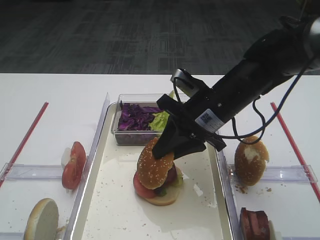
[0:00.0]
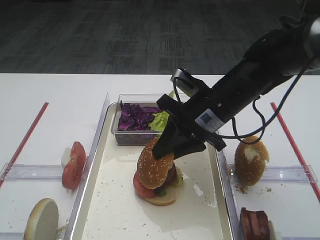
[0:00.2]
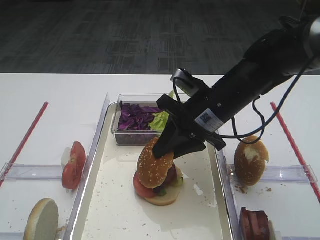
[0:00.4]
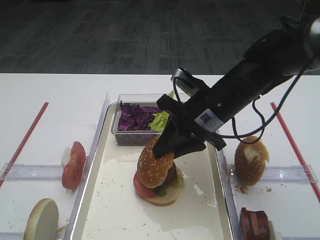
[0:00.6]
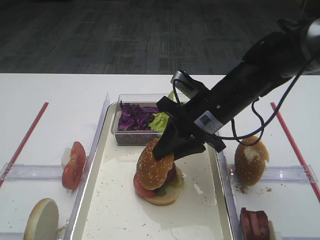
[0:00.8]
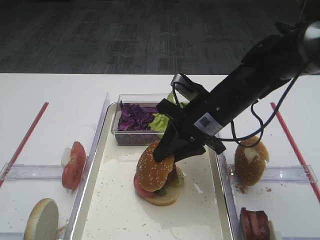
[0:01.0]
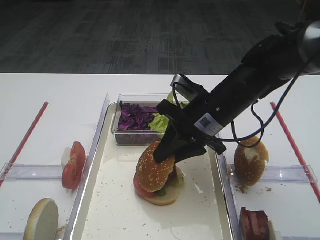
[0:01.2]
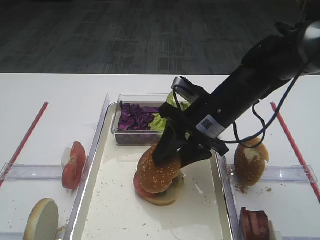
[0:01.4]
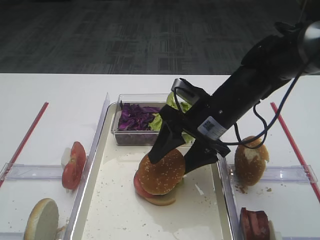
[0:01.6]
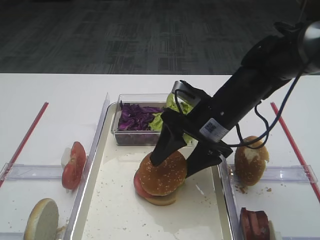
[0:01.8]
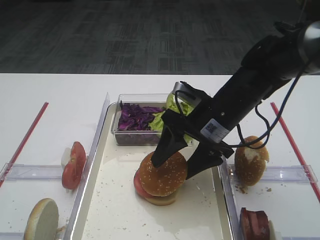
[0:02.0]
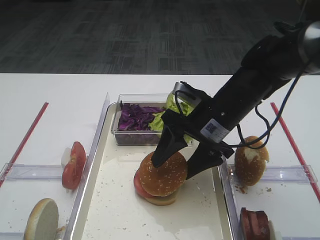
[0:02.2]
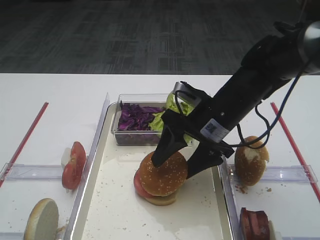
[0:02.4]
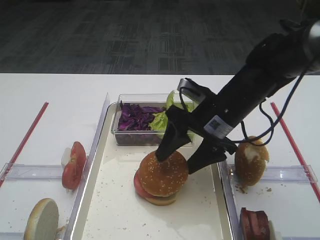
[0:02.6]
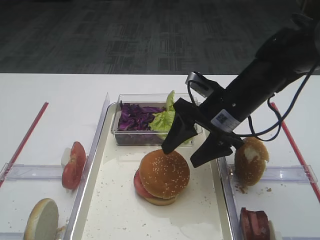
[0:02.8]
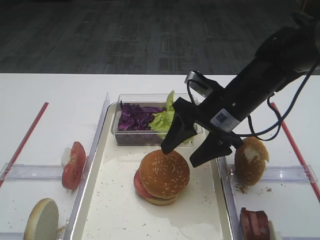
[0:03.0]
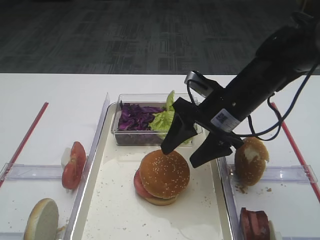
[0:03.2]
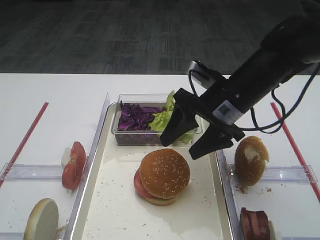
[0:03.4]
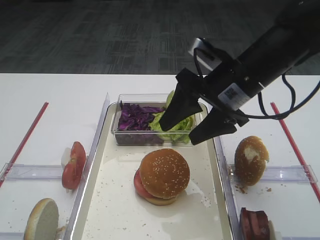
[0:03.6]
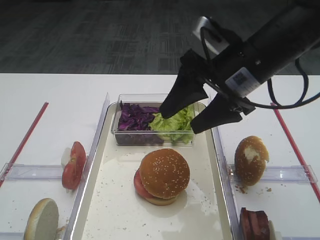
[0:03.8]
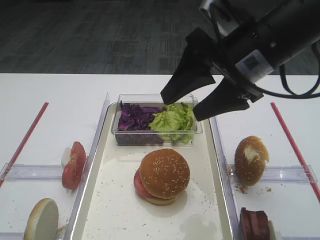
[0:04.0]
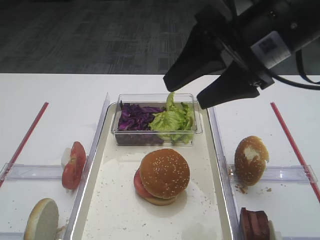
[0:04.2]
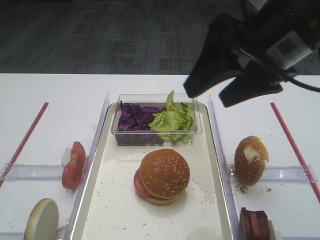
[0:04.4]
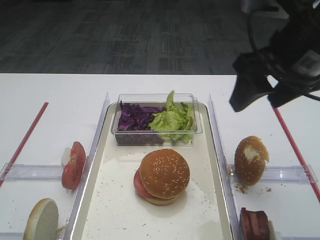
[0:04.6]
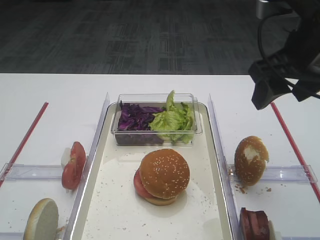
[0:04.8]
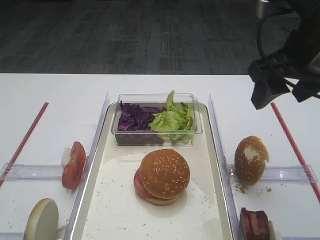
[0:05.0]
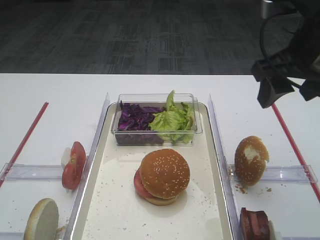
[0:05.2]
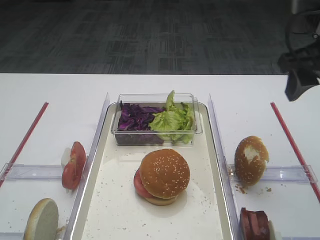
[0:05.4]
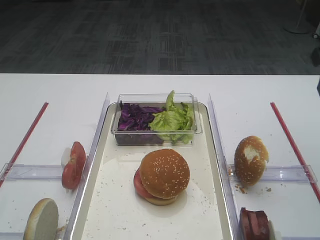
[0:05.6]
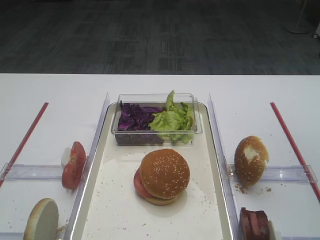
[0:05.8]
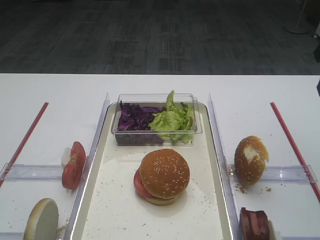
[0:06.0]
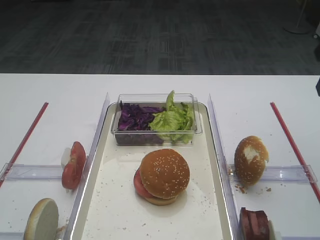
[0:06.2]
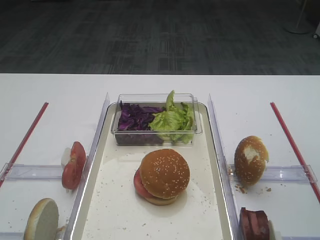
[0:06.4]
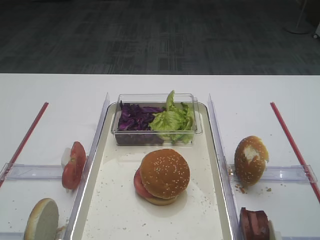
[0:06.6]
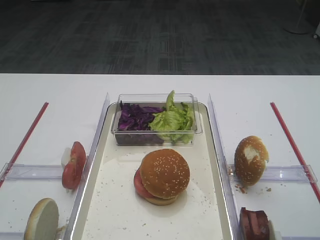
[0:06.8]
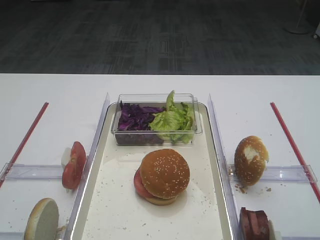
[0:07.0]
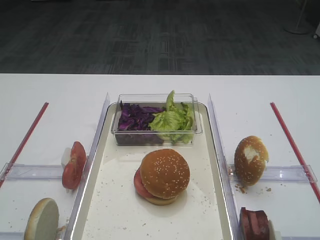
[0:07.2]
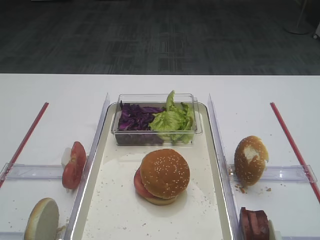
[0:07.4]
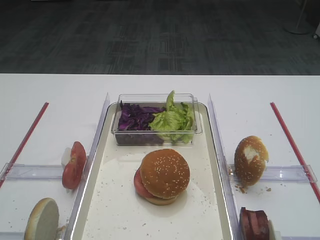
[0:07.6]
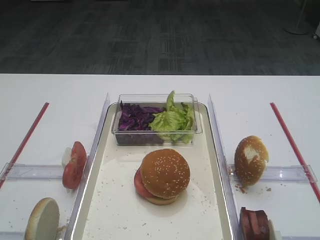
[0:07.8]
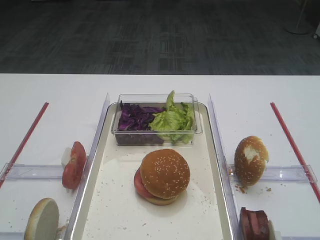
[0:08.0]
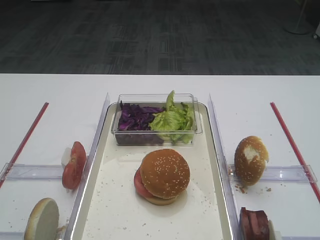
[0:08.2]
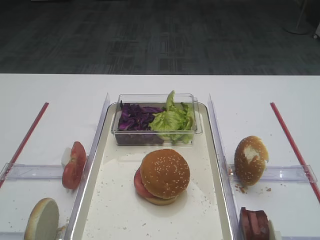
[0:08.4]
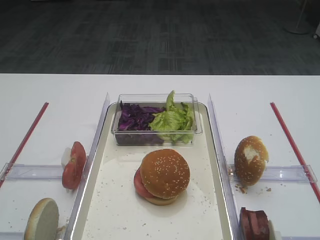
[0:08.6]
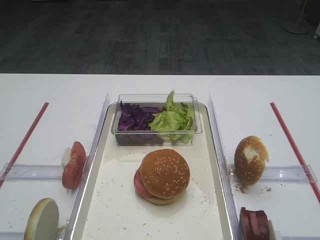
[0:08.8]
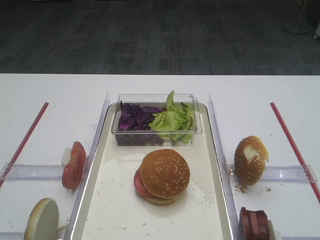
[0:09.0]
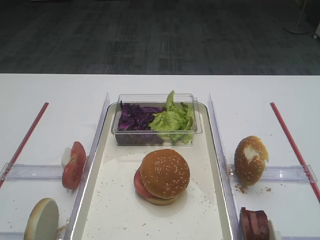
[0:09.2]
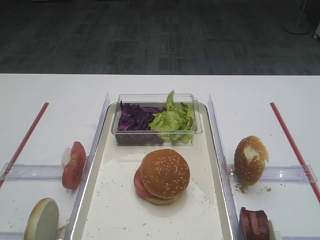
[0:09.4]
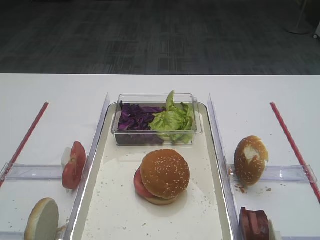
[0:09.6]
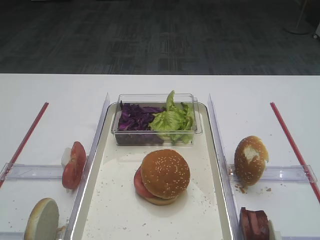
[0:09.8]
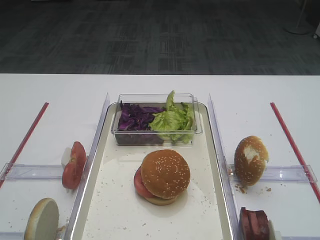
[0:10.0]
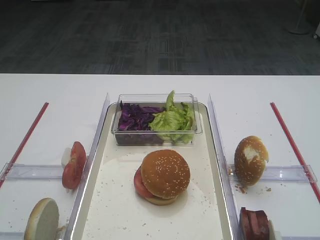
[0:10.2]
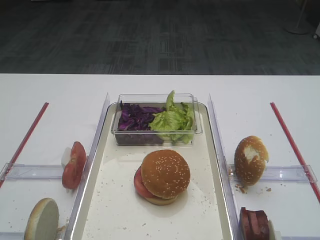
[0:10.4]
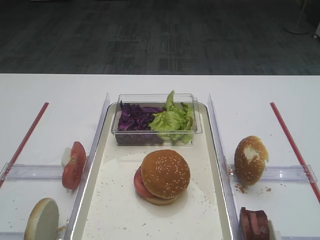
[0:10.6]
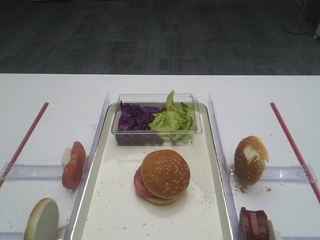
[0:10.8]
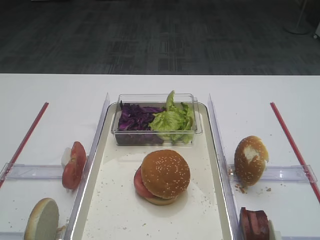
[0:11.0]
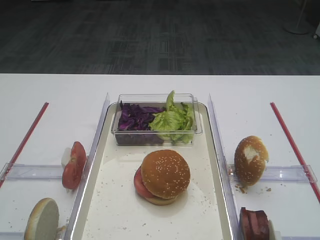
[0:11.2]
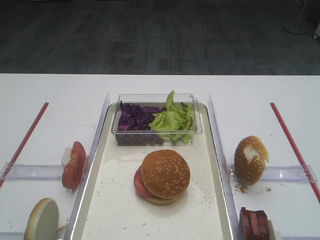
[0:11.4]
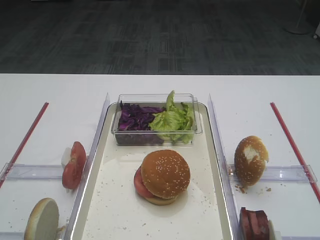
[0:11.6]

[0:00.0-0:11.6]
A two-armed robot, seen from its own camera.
Step, 0.0 to 3.0 s: Place the hamburger lid on the purple cabbage with the right gripper.
0.0 to 1.4 s: Both grippers stay about where they are.
1.4 to 2.8 s: The right gripper opens up.
2.8 to 4.4 s: The right gripper shifts about 20 cm upward and backward.
4.4 to 5.8 s: The right gripper heads to the right, covering approximately 15 cm.
8.8 to 11.6 s: Both grippers stay about where they are.

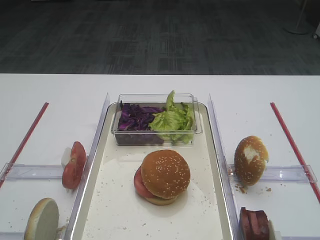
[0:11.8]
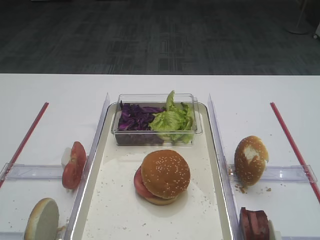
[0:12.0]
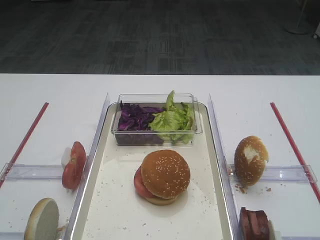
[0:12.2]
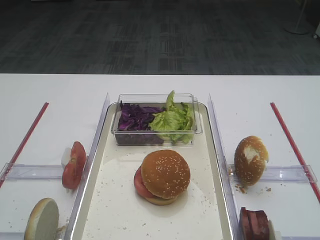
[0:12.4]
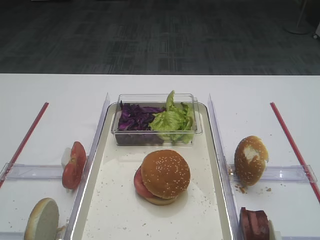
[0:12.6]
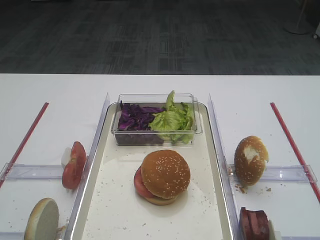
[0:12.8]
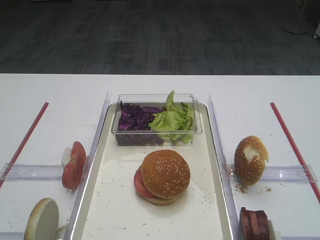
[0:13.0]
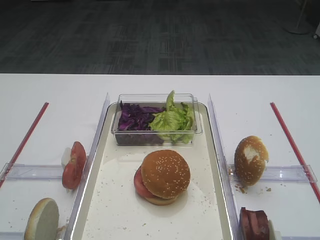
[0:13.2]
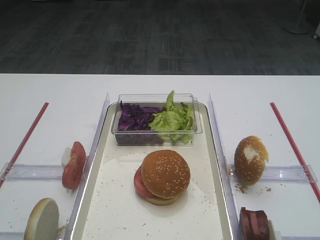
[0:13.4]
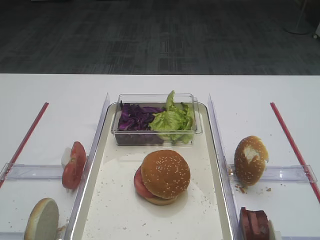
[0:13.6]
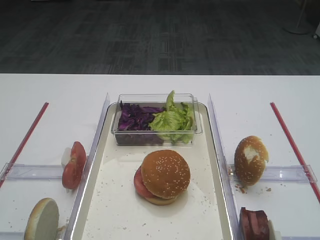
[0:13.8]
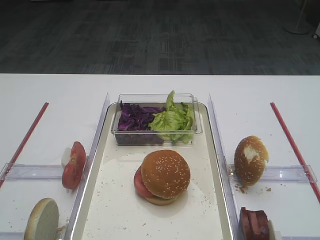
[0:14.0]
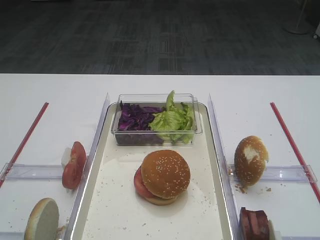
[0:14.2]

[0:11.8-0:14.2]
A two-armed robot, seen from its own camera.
11.8 to 14.2 s: The two grippers keep their place.

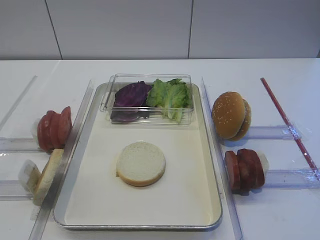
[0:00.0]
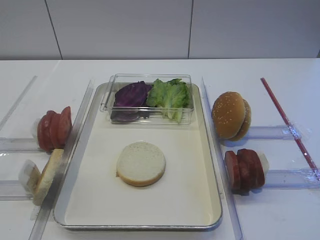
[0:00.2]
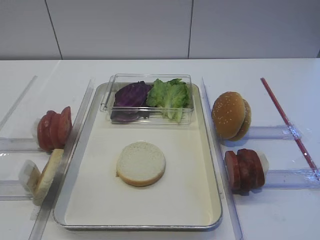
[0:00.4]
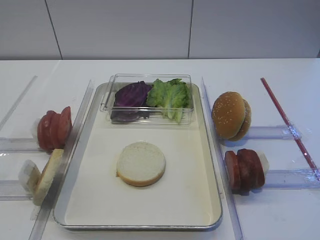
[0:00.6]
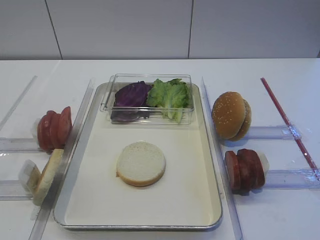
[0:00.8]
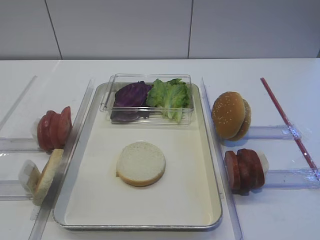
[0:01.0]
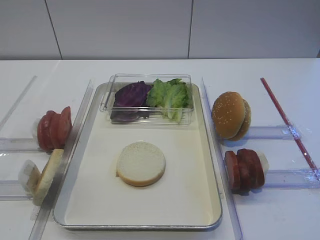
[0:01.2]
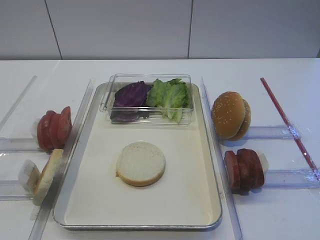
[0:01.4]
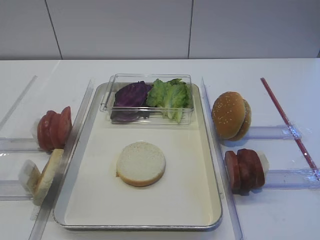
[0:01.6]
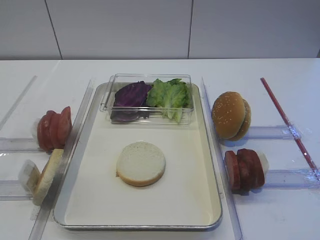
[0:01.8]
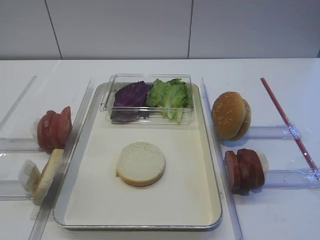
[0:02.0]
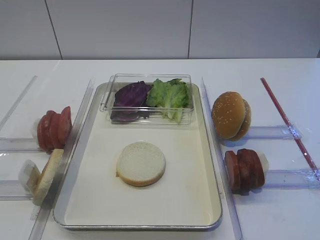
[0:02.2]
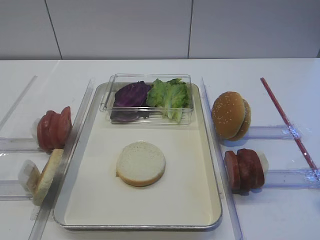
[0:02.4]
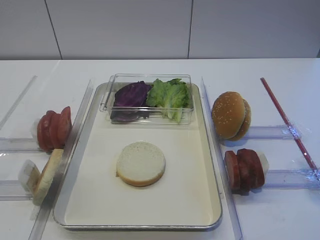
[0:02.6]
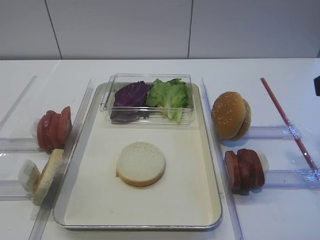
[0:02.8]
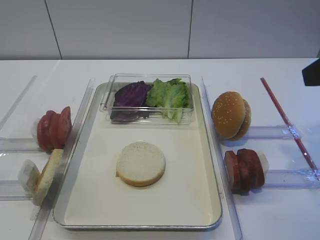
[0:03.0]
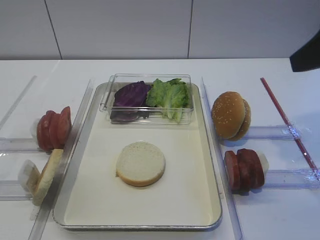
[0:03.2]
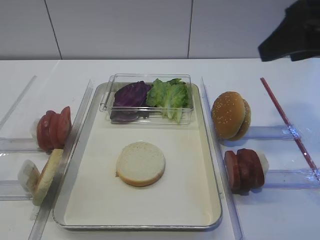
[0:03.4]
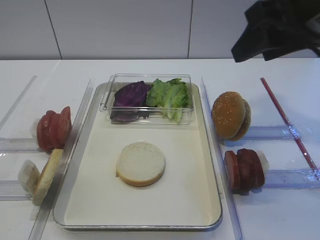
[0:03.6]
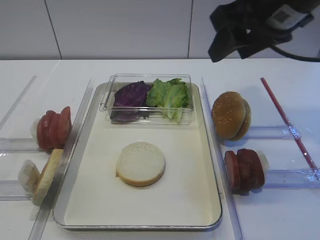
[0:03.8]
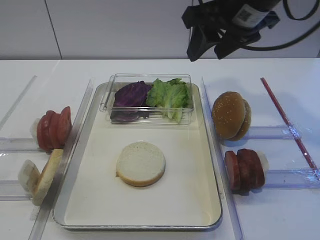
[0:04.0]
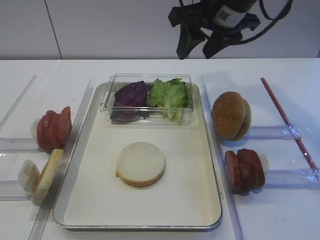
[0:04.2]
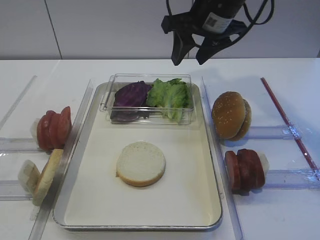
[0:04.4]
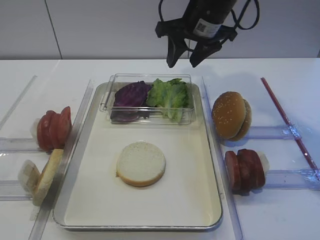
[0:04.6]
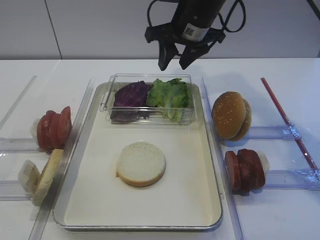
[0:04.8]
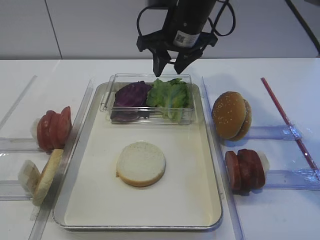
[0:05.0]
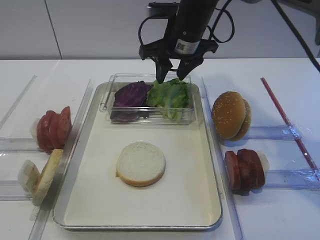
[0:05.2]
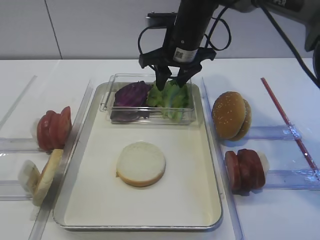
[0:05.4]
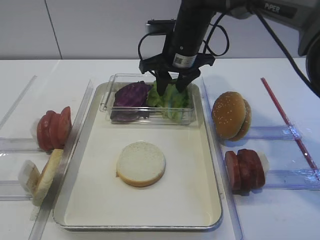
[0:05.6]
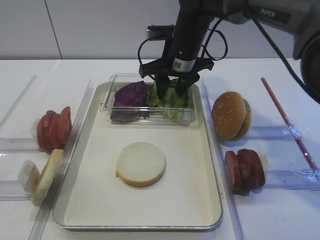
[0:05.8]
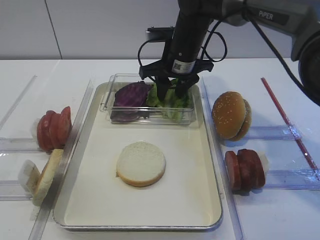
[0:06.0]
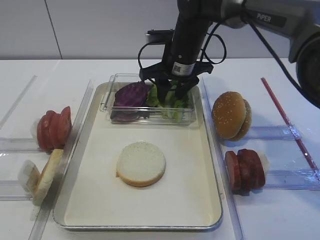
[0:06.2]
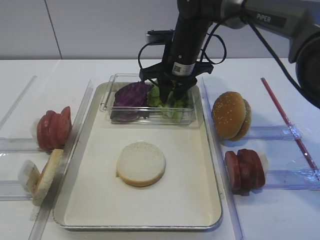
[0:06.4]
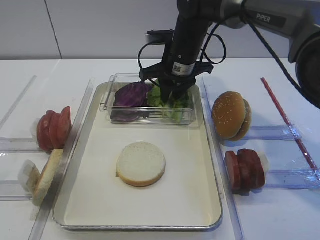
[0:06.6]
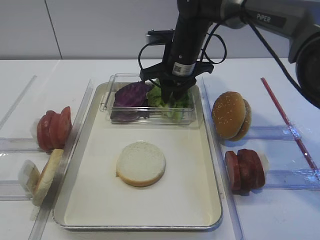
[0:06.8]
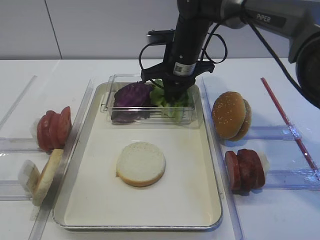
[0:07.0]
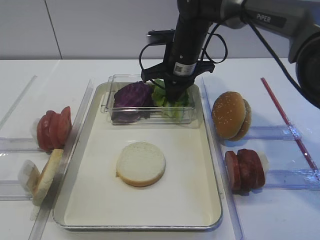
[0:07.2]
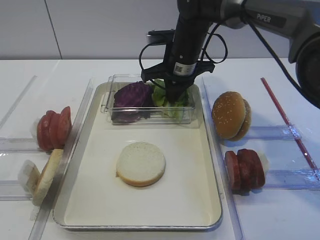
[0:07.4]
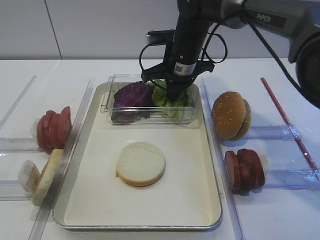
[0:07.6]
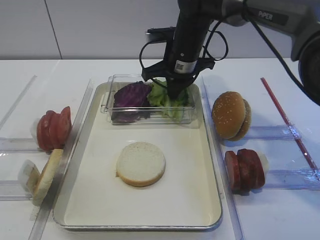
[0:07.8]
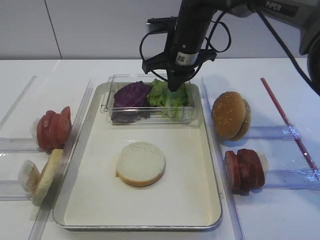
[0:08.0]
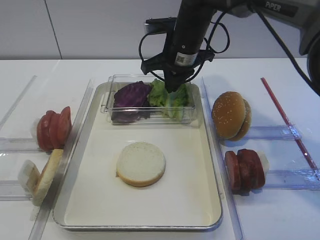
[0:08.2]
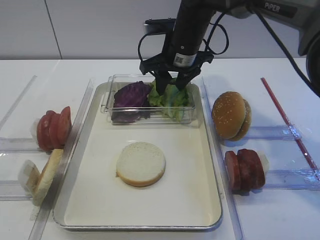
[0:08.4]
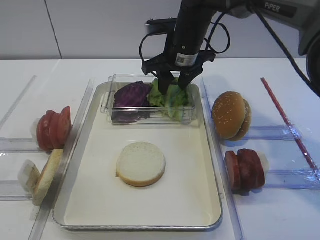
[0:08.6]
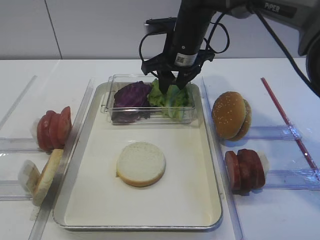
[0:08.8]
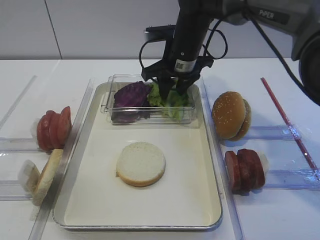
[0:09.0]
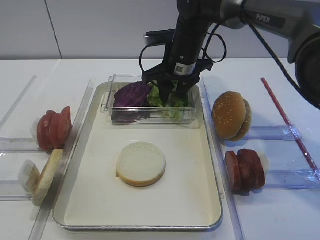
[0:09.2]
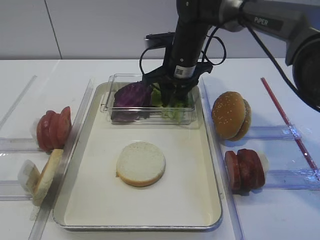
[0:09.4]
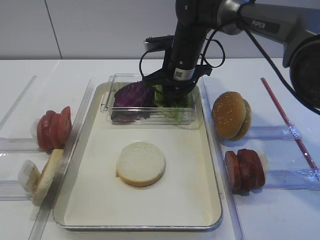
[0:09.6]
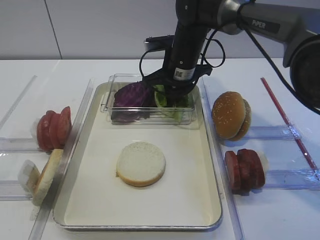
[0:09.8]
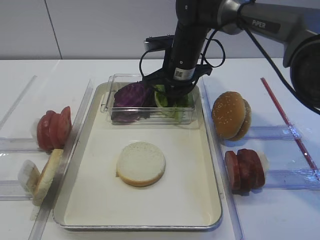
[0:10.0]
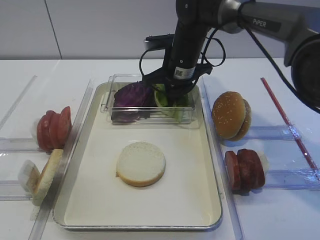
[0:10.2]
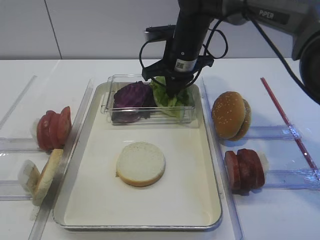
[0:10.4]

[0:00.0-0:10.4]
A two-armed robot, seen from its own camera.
1.4 to 3.0 s: The right gripper heads forward, covering roughly 15 cm.
3.0 to 4.4 s: The right gripper travels forward and to the left by about 25 cm.
4.4 to 6.0 s: The right gripper shifts some 10 cm downward and to the left.
6.0 to 7.4 s: The right gripper closes.
7.4 to 9.0 s: The right gripper opens up.
9.0 to 10.4 s: The right gripper closes.
